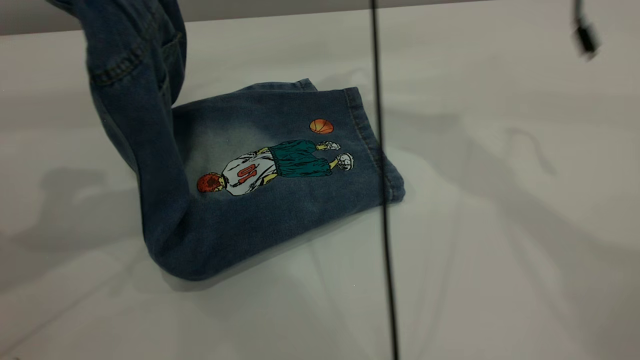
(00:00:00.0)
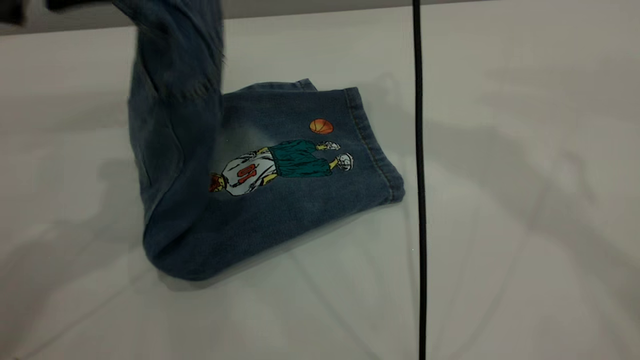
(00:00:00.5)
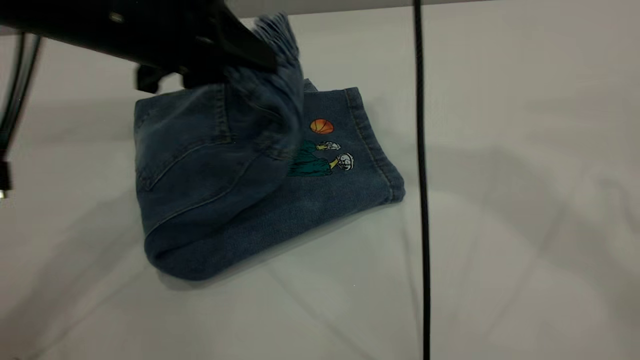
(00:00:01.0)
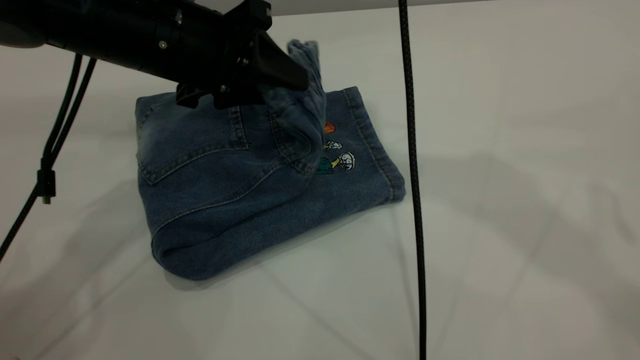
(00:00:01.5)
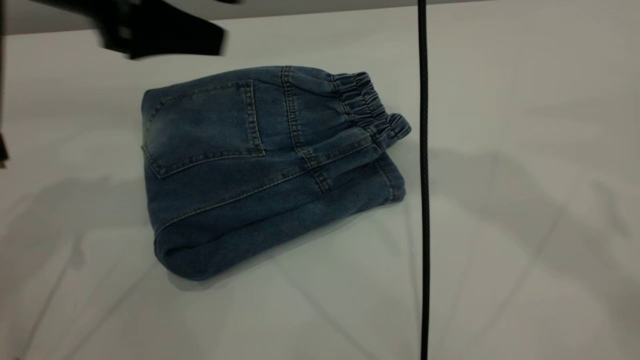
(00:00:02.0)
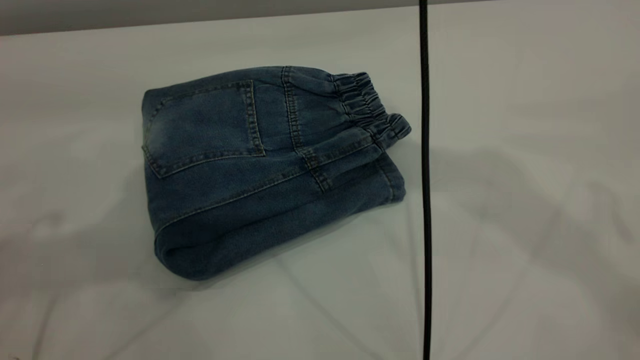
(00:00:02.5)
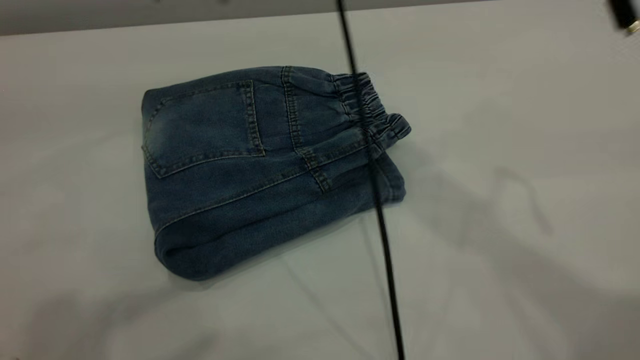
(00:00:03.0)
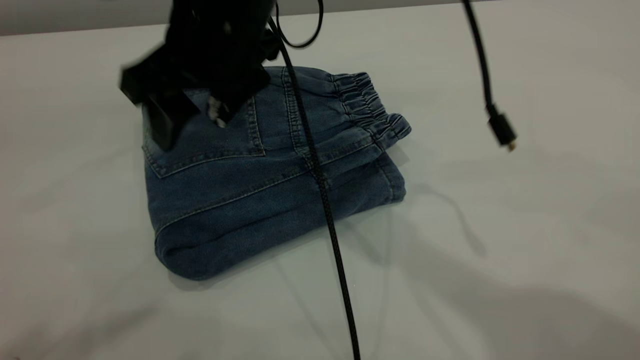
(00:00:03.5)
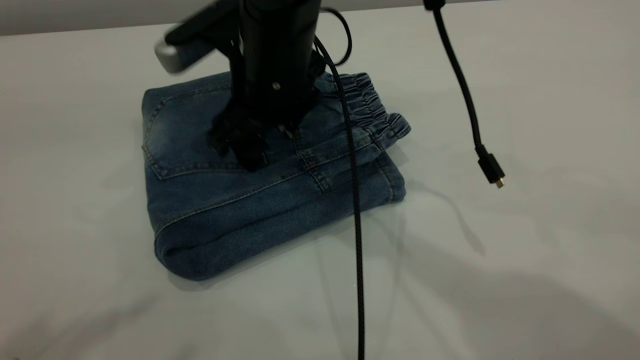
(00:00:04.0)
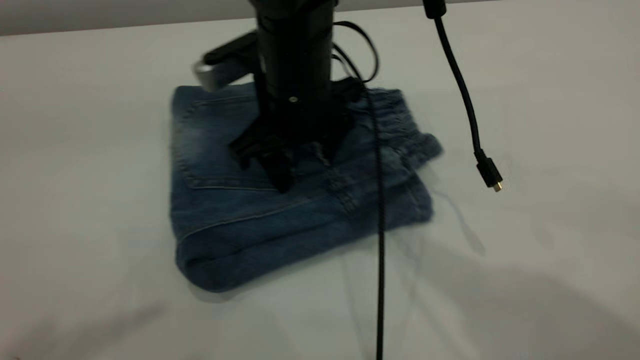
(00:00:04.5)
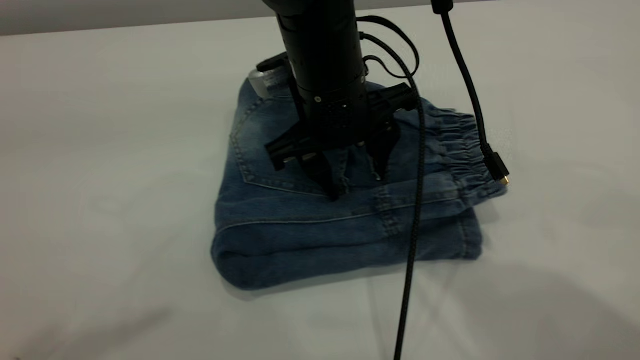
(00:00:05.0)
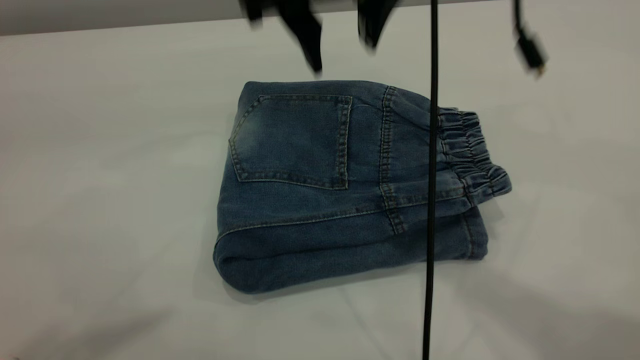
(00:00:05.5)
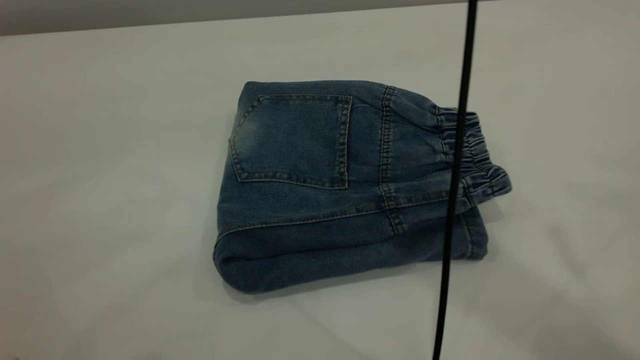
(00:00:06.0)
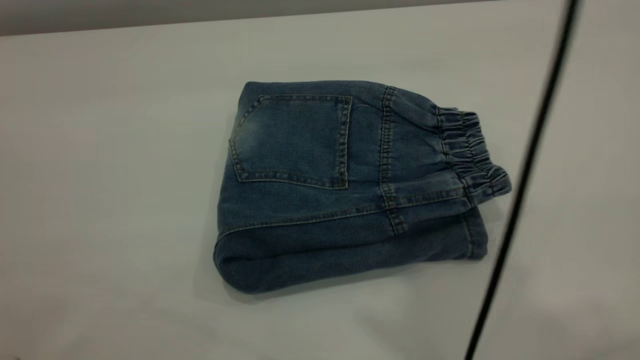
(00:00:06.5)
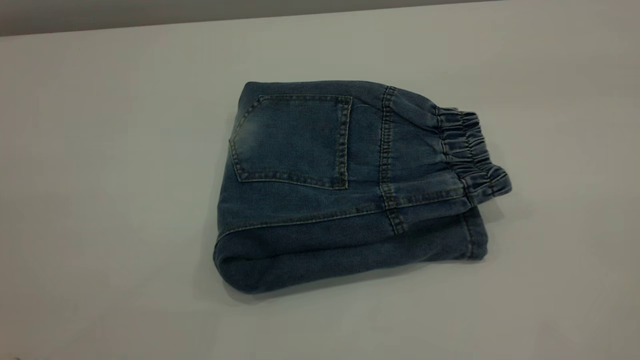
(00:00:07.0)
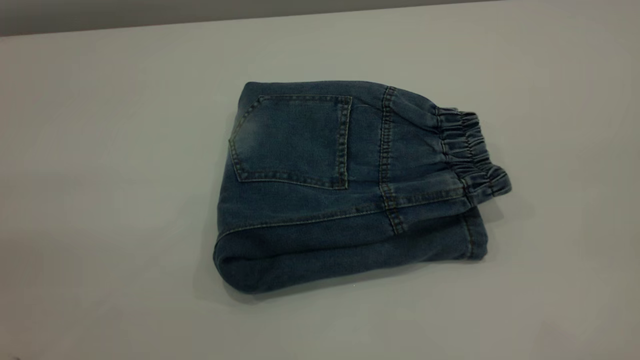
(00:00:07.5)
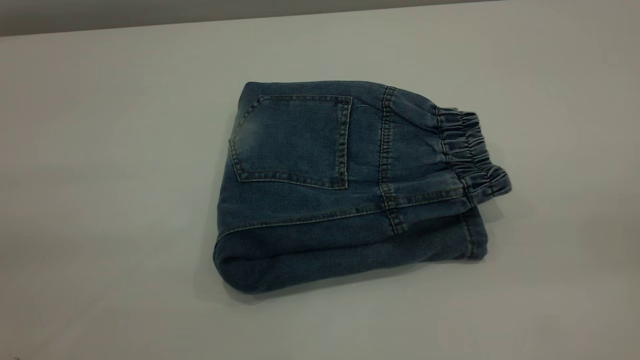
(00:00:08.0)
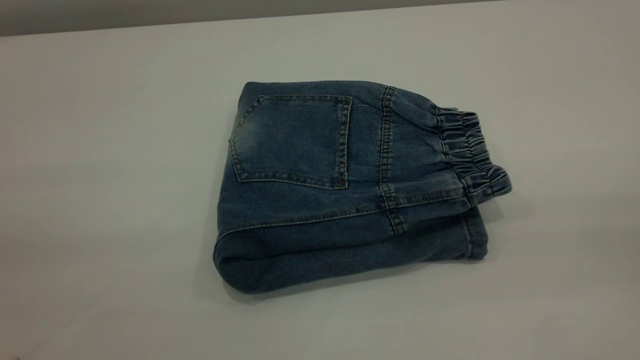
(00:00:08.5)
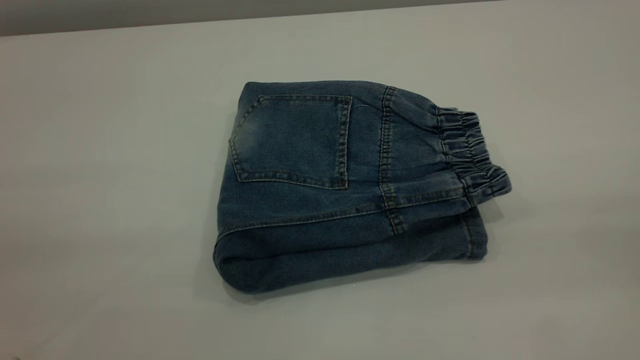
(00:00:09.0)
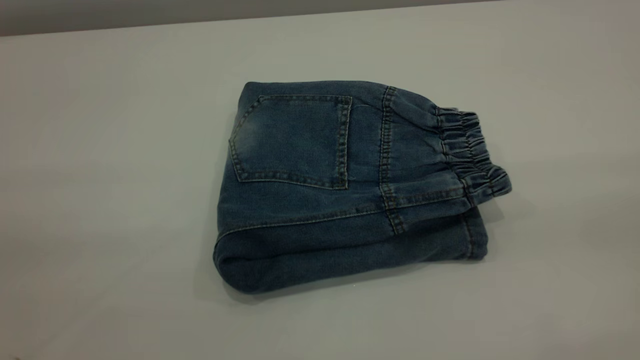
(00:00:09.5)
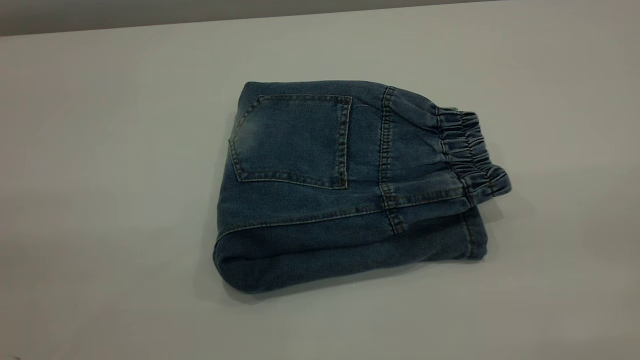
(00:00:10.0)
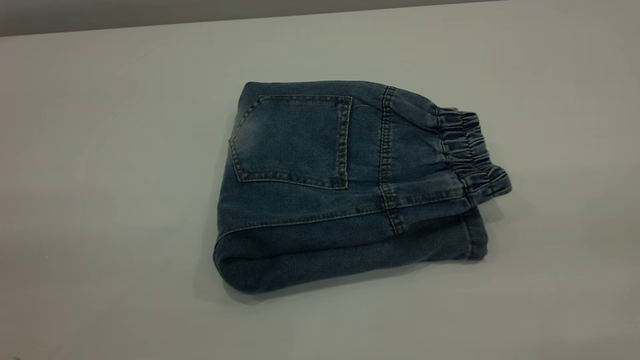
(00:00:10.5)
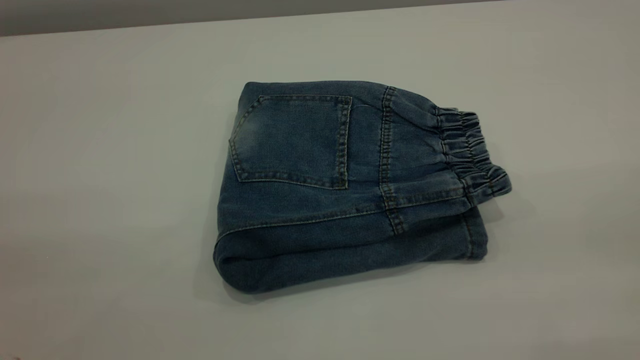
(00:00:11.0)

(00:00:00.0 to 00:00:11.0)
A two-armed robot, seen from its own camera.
Step, 00:00:00.0 - 00:00:03.0: Fold the pants from left to right.
00:00:00.0 - 00:00:02.0: The right gripper goes approximately 20 cm upward and backward. Meanwhile the left gripper moves to the right and downward, about 10 cm, and opens its fingers.
00:00:02.0 - 00:00:03.5: The left gripper goes some 30 cm upward and backward, while the right gripper goes roughly 25 cm downward and to the left.
00:00:03.5 - 00:00:05.5: The right gripper travels upward and to the right by about 10 cm.
00:00:05.5 - 00:00:07.5: The right gripper is displaced backward, to the right and upward by some 50 cm. The left gripper heads downward, backward and to the left, covering approximately 15 cm.
